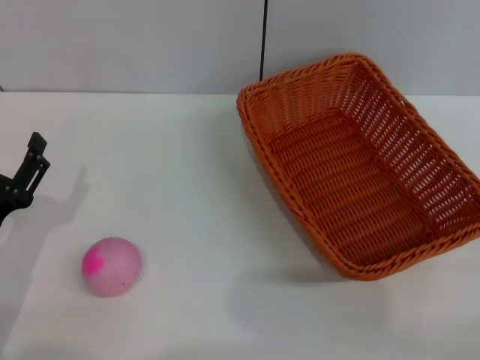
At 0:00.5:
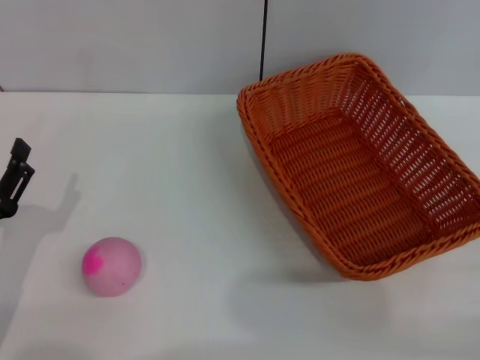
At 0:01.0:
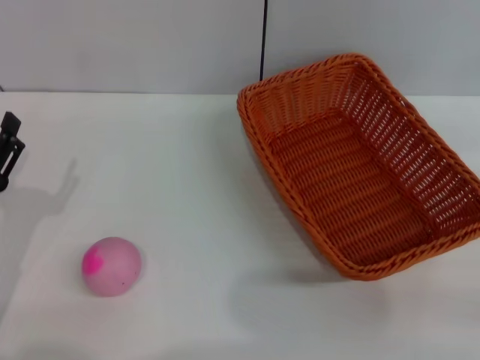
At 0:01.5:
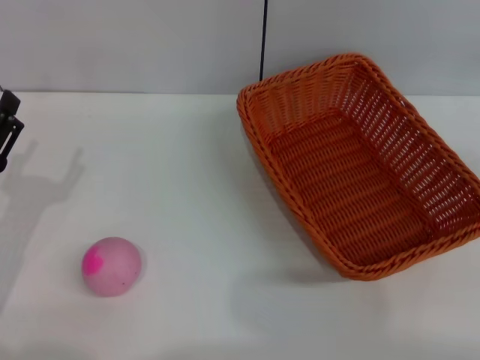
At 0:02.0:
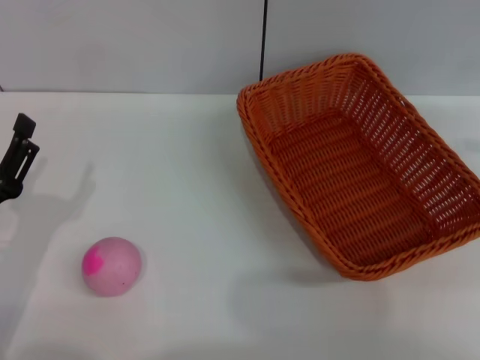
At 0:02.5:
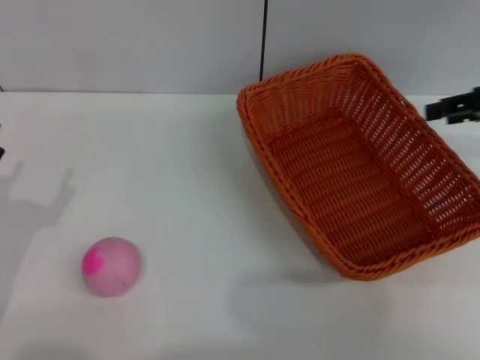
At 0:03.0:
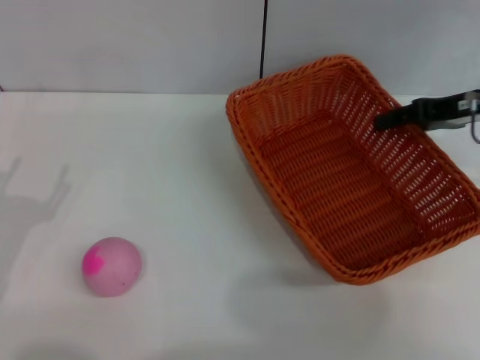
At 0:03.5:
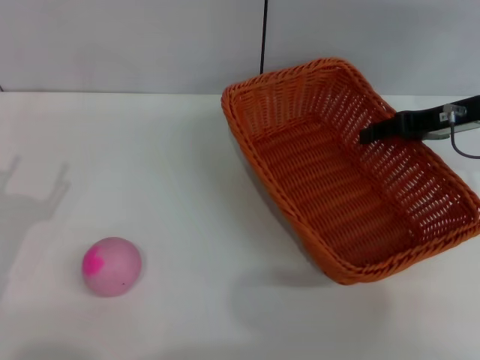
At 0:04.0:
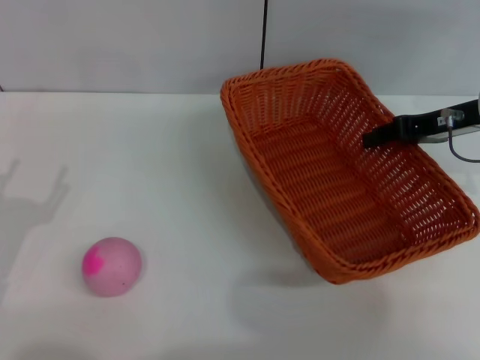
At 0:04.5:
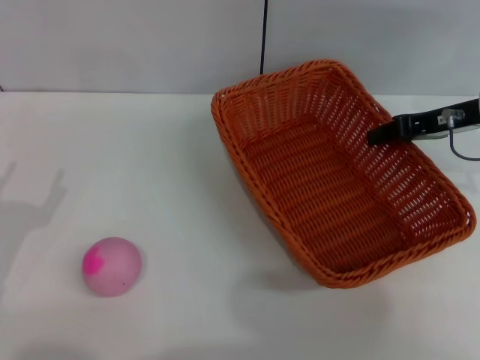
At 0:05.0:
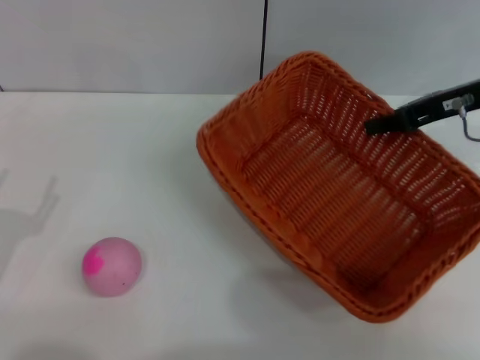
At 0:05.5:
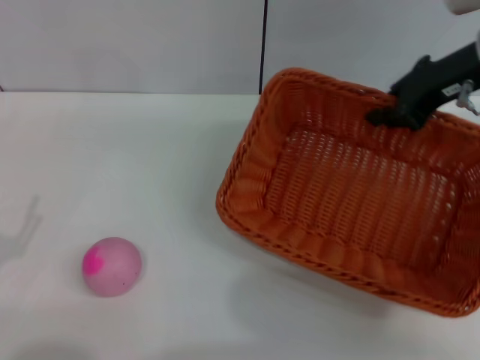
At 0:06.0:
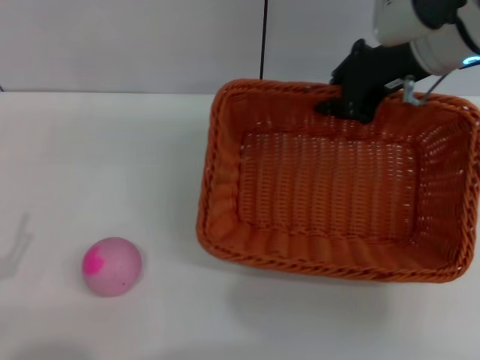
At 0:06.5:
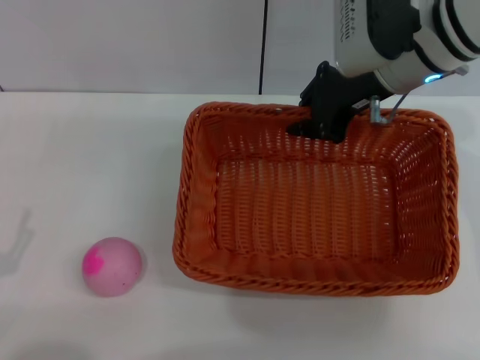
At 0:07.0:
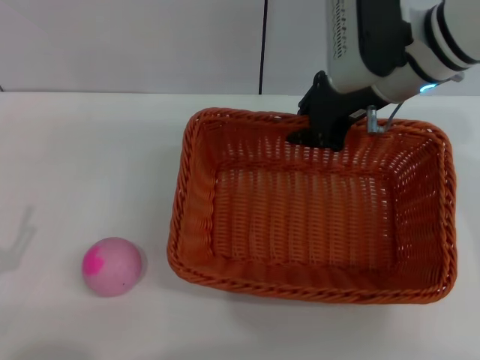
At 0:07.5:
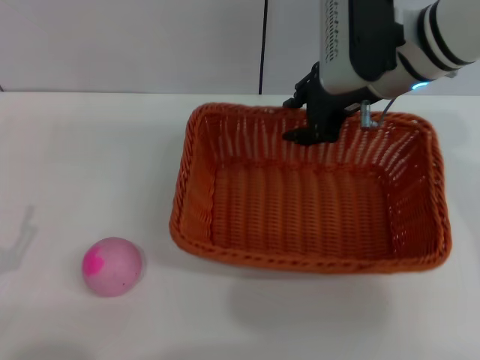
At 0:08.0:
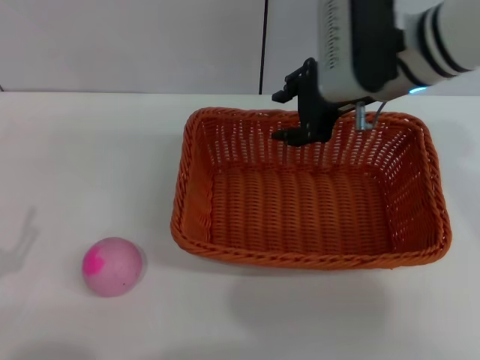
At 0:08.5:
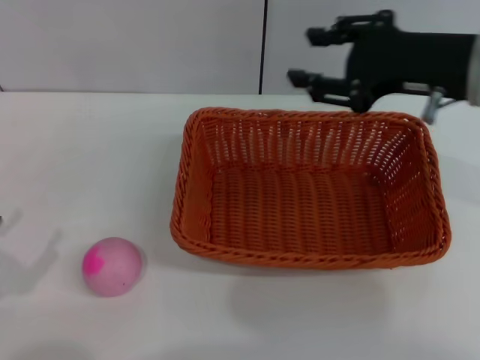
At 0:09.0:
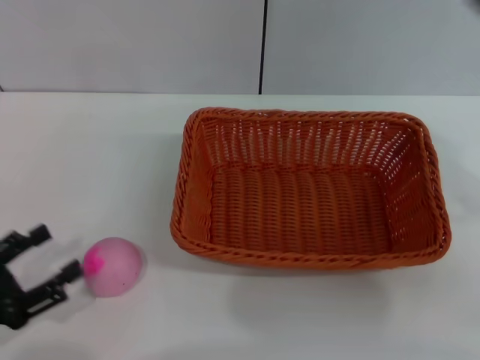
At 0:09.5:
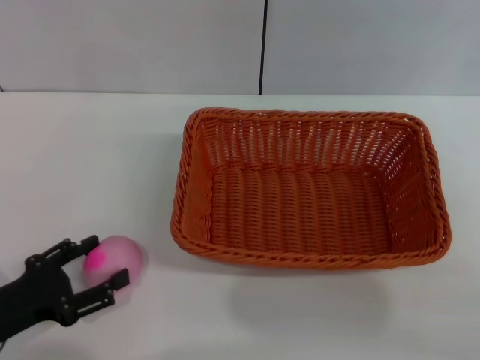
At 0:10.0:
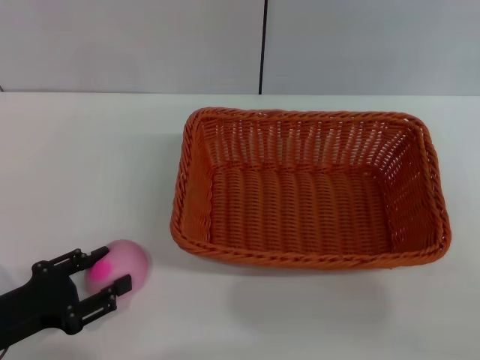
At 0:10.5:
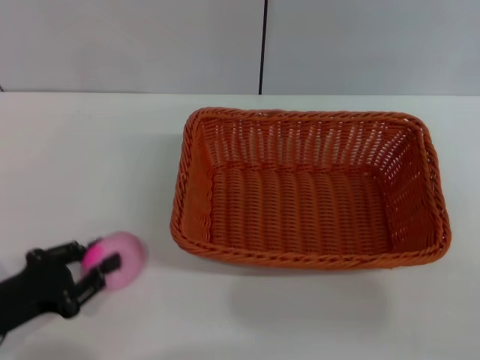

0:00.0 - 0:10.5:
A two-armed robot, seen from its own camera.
Step, 0:00.0 - 0:05.0: Pick up the light basket with the right gripper.
Step, 0:05.5 - 0:08.0: Place the light basket in the center of view with the right gripper.
0:02.0 - 0:04.0: The right gripper is displaced to the left and downward by about 15 cm.
0:04.0 - 0:06.5: The right gripper heads to the left and upward, covering approximately 15 cm, and closes up; the left gripper shifts approximately 5 cm backward.
0:06.5 - 0:08.5: The right gripper moves backward and to the right, roughly 10 cm, and opens its fingers.
0:08.5 - 0:10.5: The right gripper travels to the right, backward and downward by about 20 cm. The left gripper goes roughly 5 cm forward, and closes its fingers.

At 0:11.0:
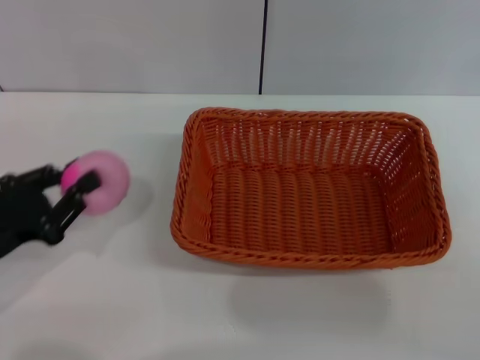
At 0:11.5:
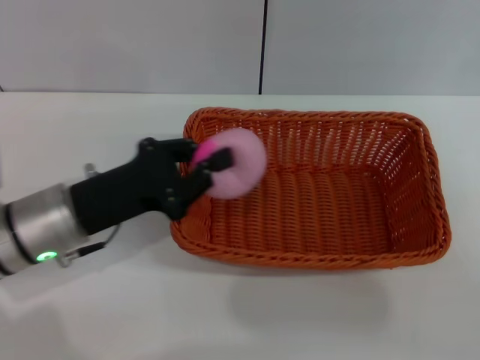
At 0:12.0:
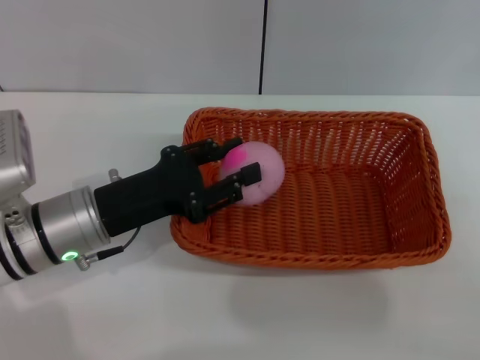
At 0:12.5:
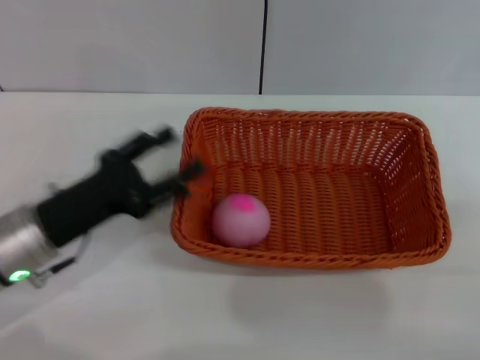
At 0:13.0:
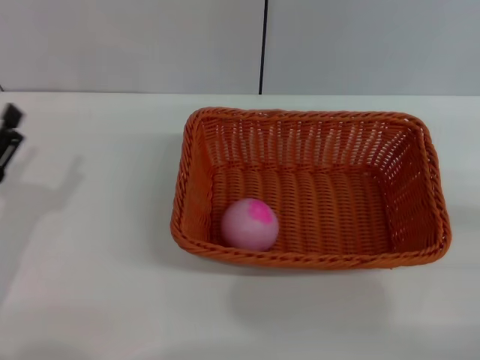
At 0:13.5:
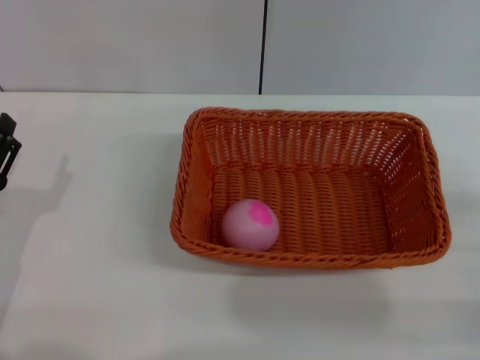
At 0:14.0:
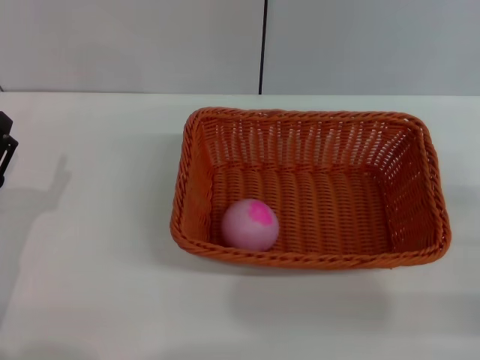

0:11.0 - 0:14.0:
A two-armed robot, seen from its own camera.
Step, 0:11.5 - 0:12.5: Place the peach into the basket with the left gripper.
0:11.0 - 0:12.5: The left gripper heads to the right, covering some 5 cm, and opens up.
0:12.5 - 0:14.0: The left gripper is displaced to the left by approximately 5 cm.
